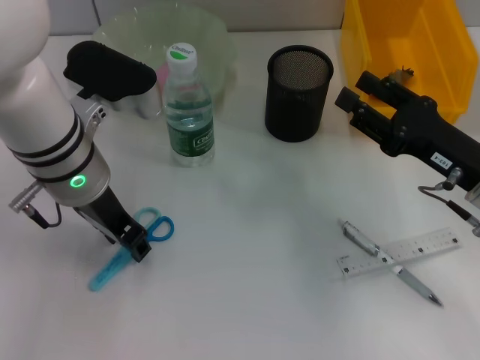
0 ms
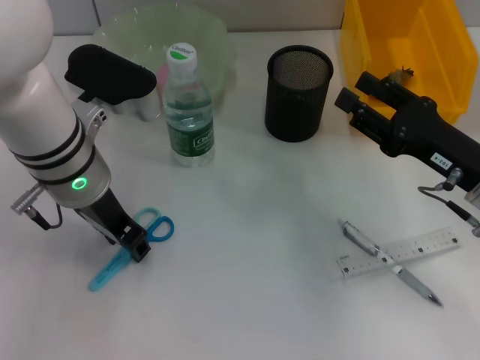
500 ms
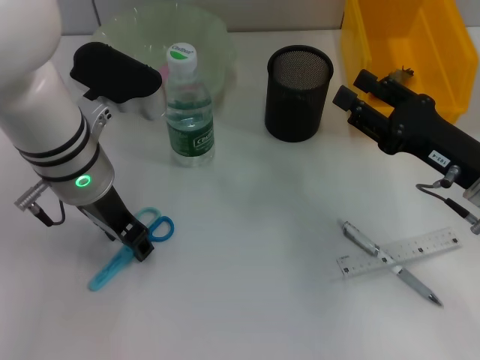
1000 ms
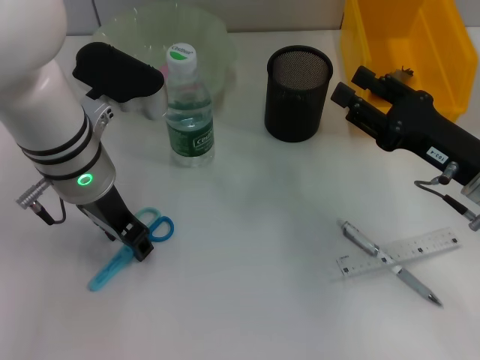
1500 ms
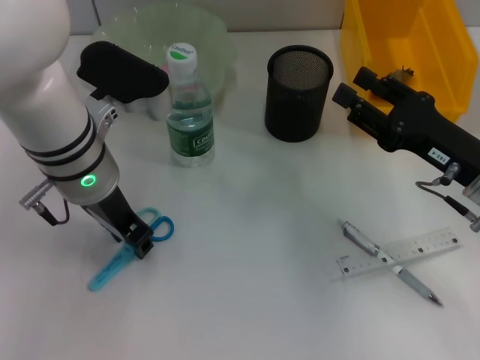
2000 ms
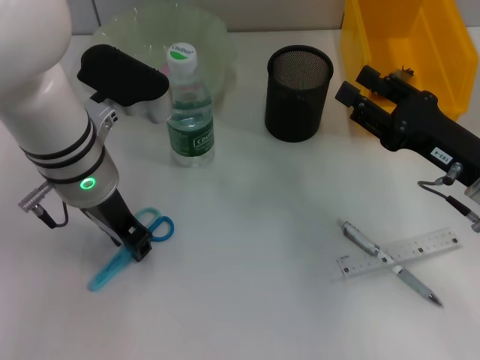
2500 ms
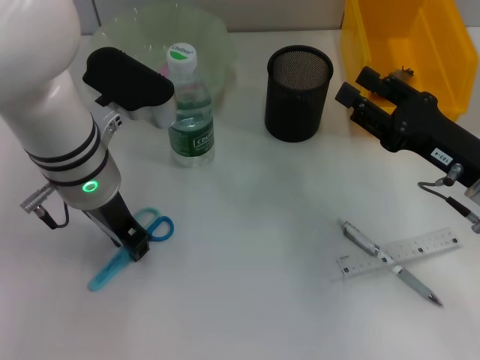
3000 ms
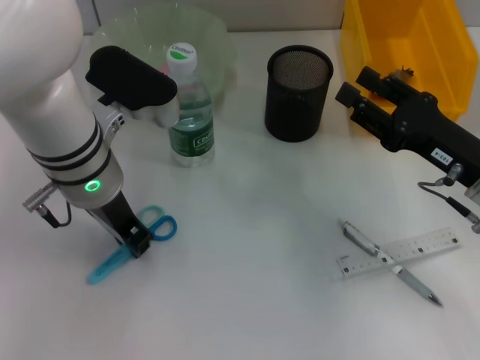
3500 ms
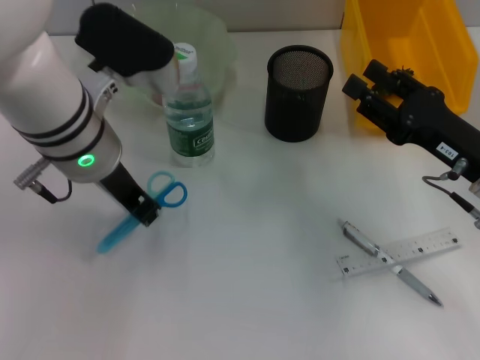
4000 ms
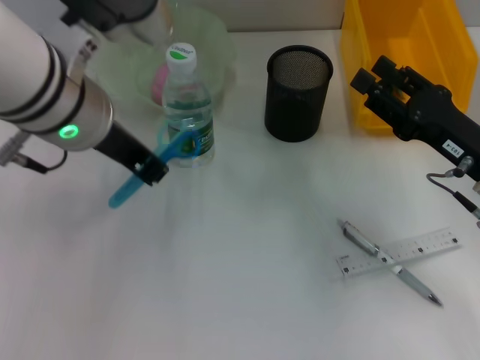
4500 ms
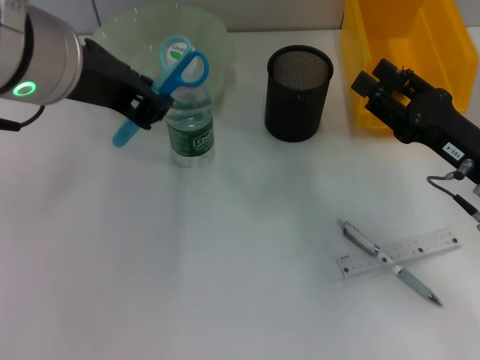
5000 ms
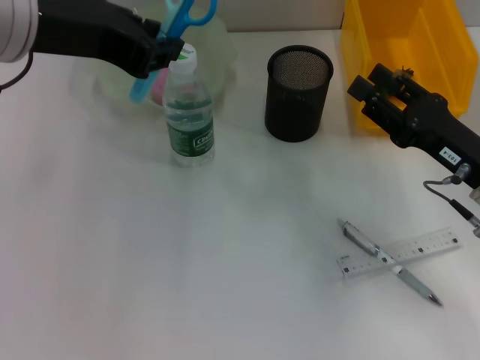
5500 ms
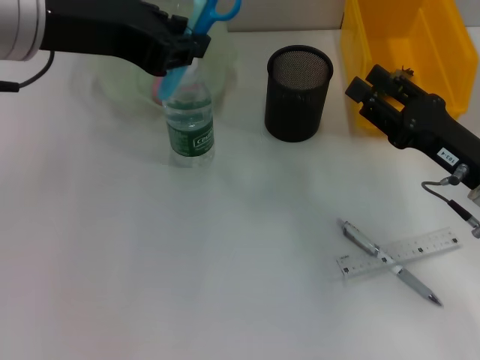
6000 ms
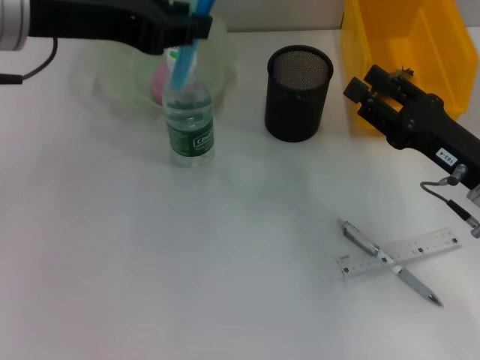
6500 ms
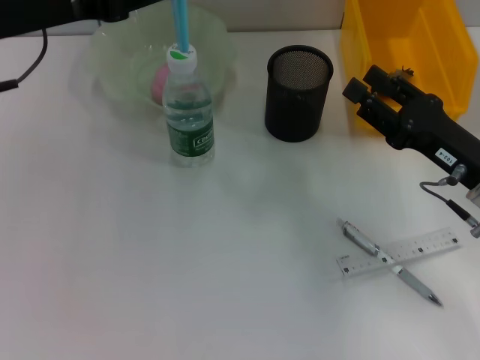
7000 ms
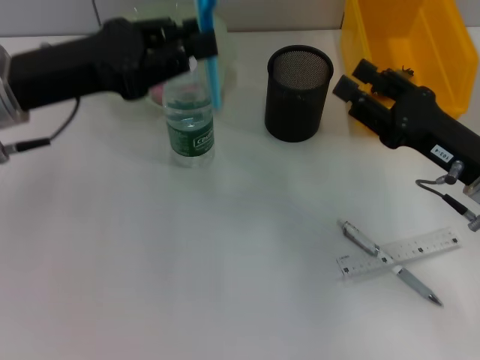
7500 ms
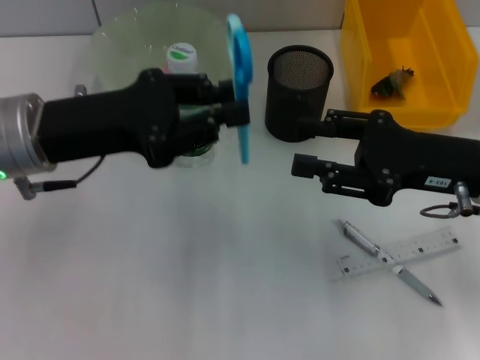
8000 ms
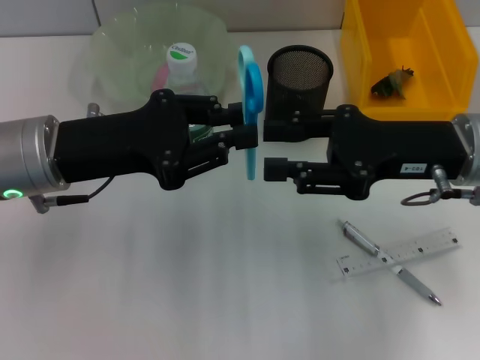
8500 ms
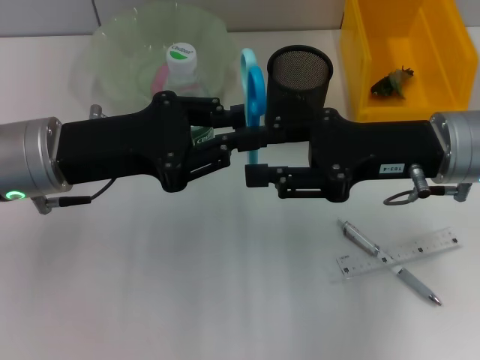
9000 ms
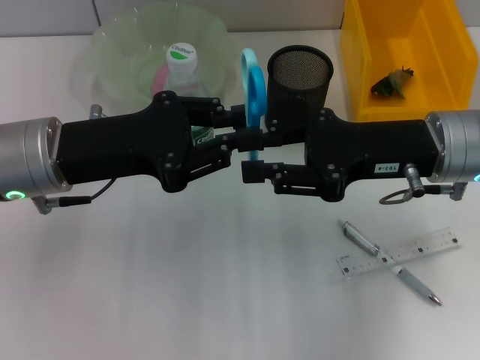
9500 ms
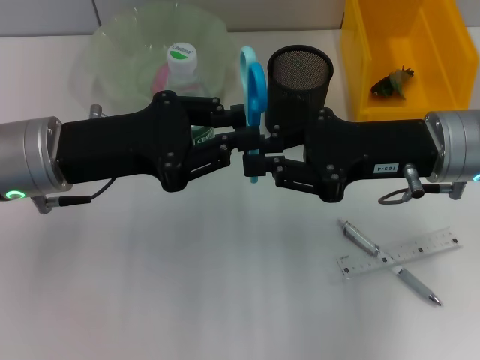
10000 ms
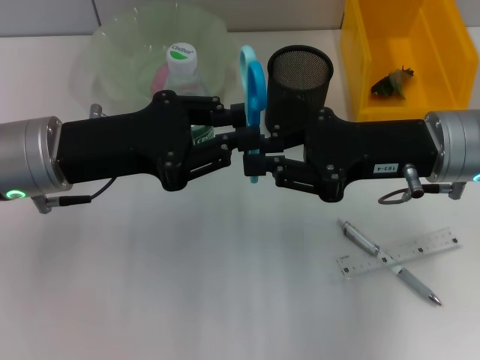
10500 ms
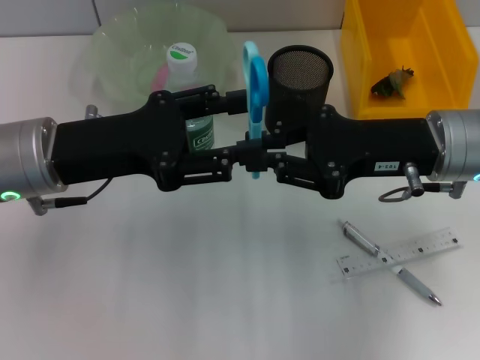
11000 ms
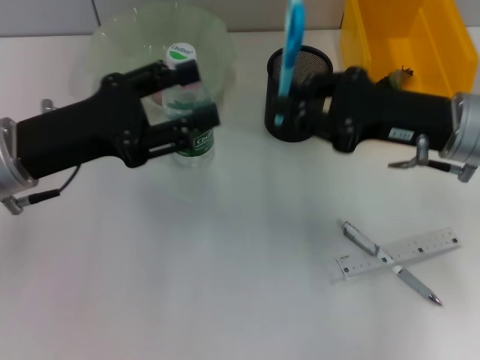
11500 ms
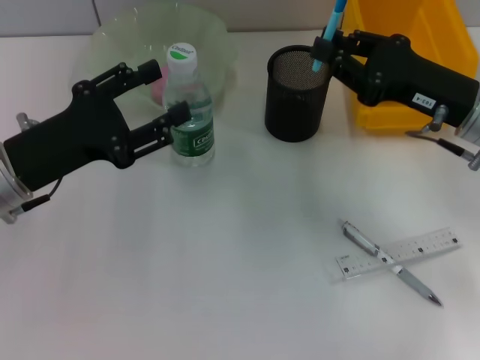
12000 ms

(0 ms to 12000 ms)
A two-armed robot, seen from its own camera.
Step, 0 ms - 3000 ms: Grab the blue scissors with the left hand.
Step, 3500 ms - 11000 ms: Pass the blue scissors from the left hand to the right hand.
0 ms - 2000 ms: Neither gripper changes place.
2000 ms - 4000 ms: The grippers stay close to where they were, moving slightly.
4000 ms - 6000 ms: The left gripper moves upward, some 10 cm.
6000 ms - 8000 ms: The right gripper is displaced upward by some 5 cm; the left gripper is displaced downward by approximately 15 cm.
8000 ms - 10000 ms: The right gripper ends up about 5 cm from where it was, and closes up.
10000 ms - 12000 ms: The left gripper shifts by roughly 5 cm, and opens up, while the right gripper changes place by about 5 cm.

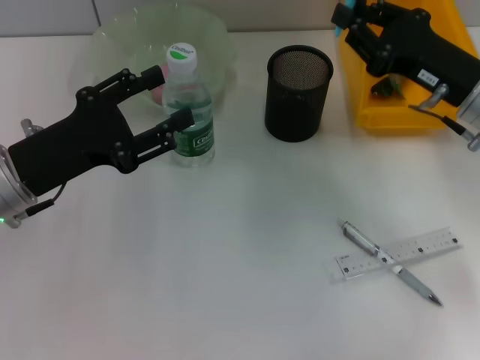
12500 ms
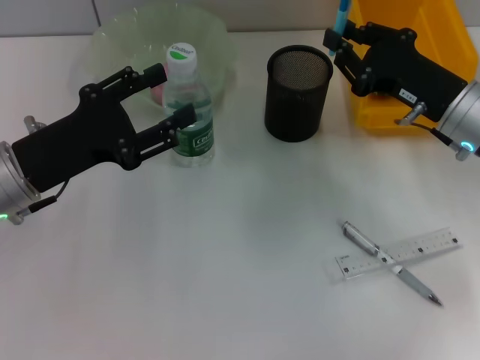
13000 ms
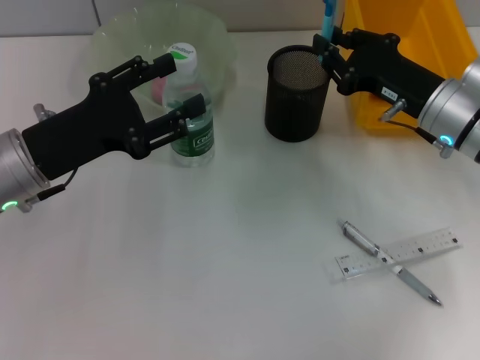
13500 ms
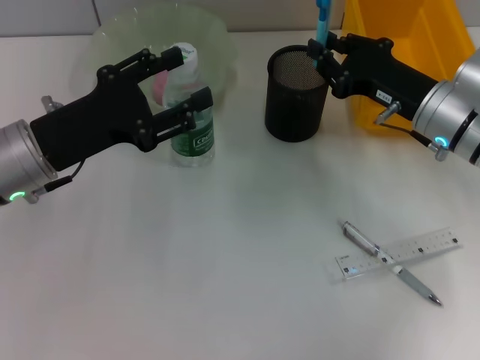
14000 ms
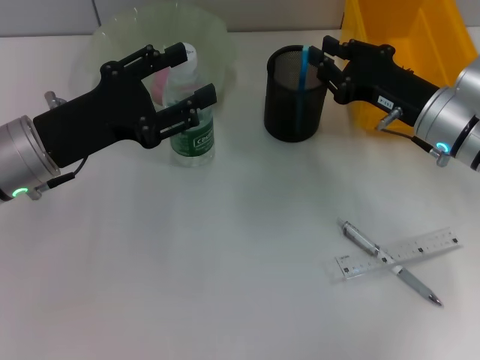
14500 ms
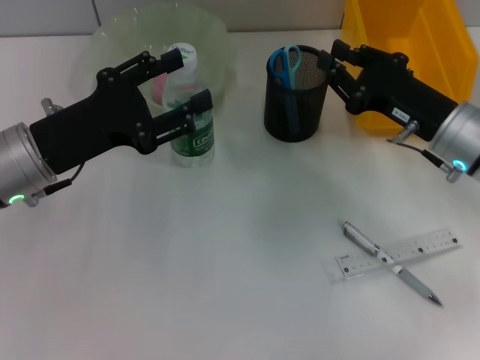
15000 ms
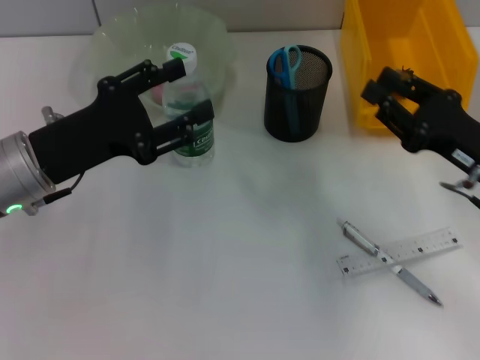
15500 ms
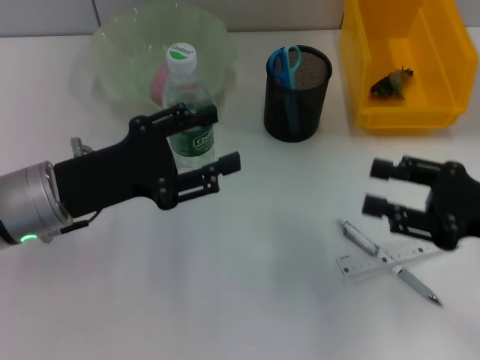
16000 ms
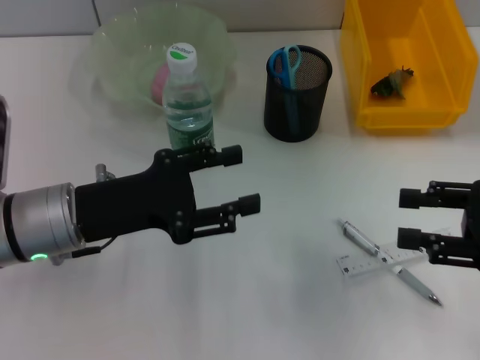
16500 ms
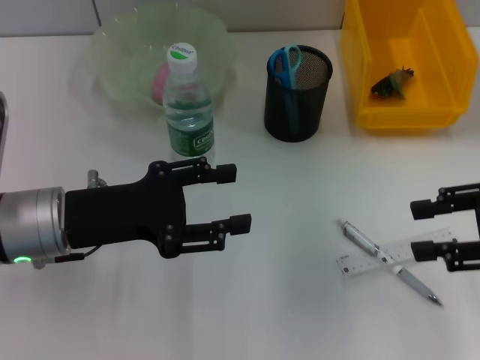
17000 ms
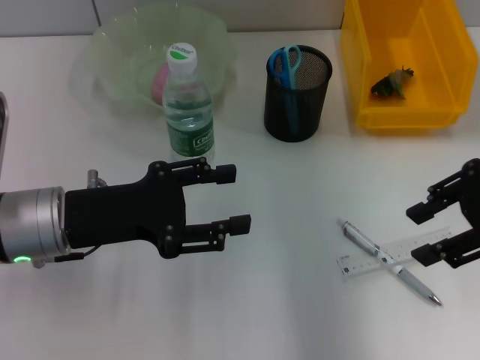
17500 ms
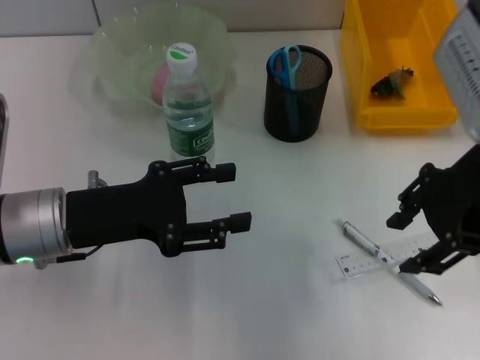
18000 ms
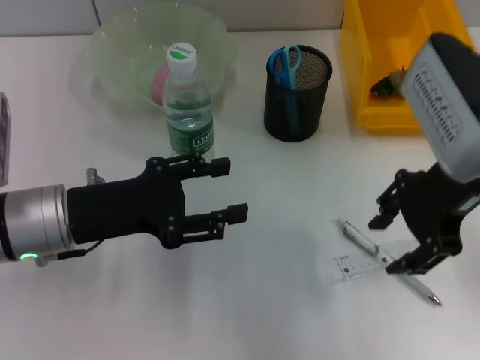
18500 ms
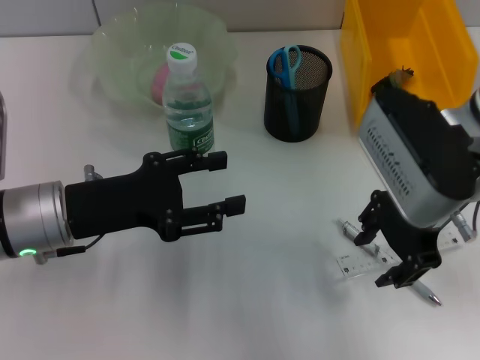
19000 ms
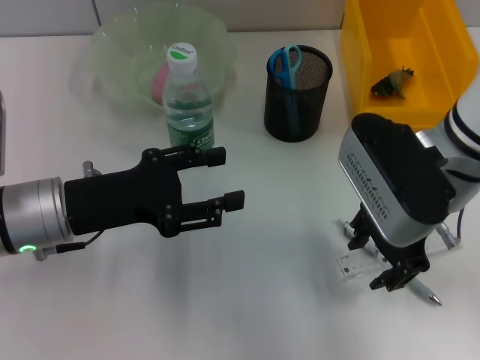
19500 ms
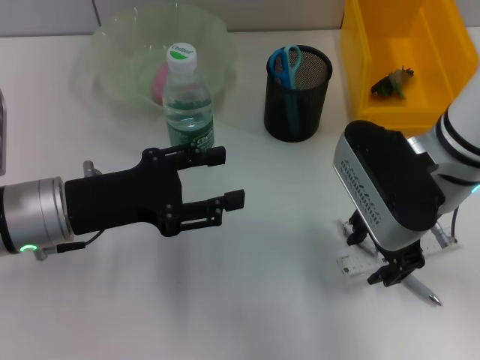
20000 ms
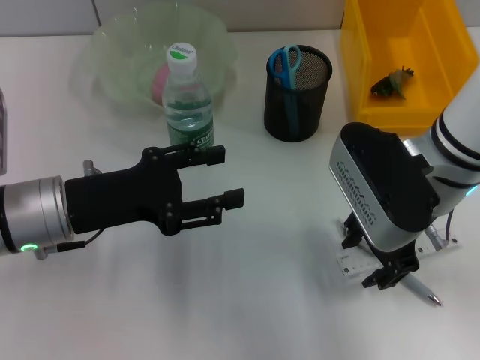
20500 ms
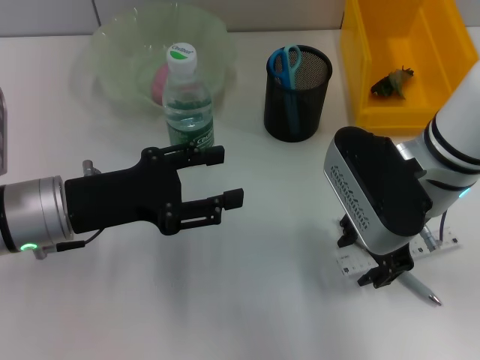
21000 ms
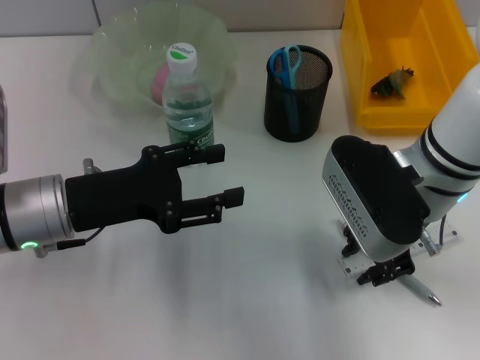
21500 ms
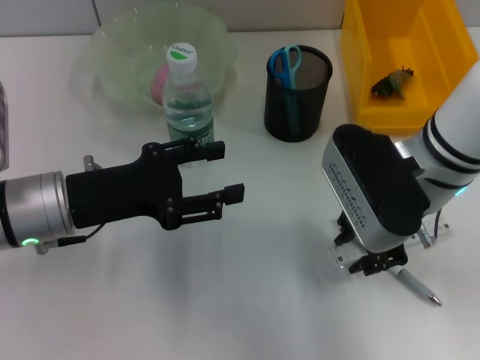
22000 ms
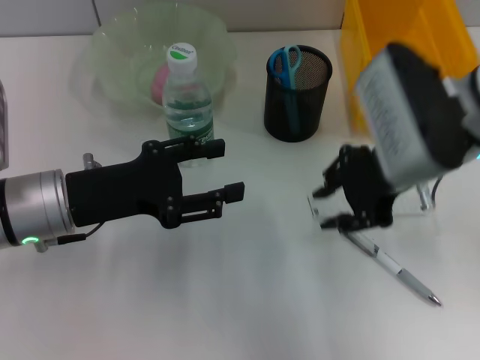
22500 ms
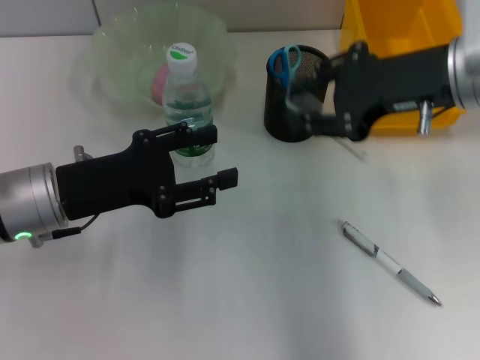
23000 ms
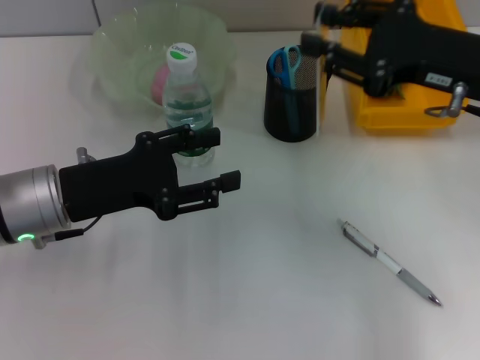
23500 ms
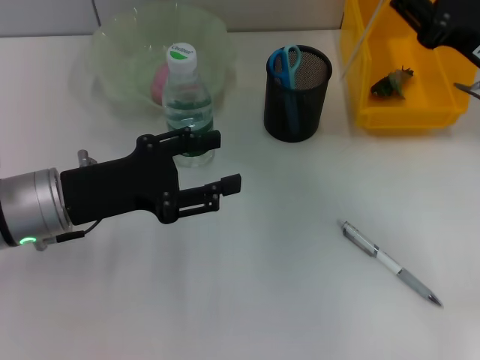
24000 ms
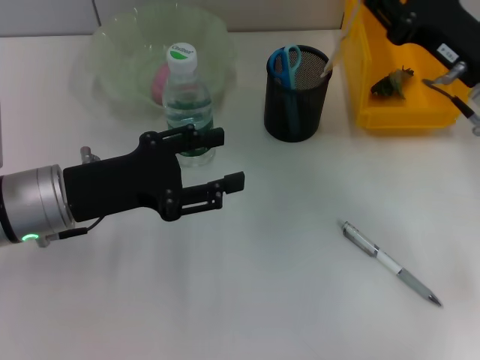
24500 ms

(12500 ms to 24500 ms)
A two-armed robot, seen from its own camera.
Step, 12500 ms - 14500 ms: Place the blue scissors into the pen holder with the right hand.
Step, 15000 ms - 21000 ms: Grab the ruler with the right hand.
12500 ms - 14500 ms: The grippers stay close to where they were, moving slightly.
14500 ms - 16500 ms: The right gripper shifts about 15 cm backward and to the right, and opens.
16500 ms - 18500 ms: The right gripper goes roughly 20 cm to the left, upward and forward.
18500 ms - 20500 ms: The right gripper is displaced downward by approximately 5 cm.
20500 ms - 22500 ms: The grippers move only a little.
22500 ms - 24500 ms: The right gripper goes some 10 cm to the right and downward.

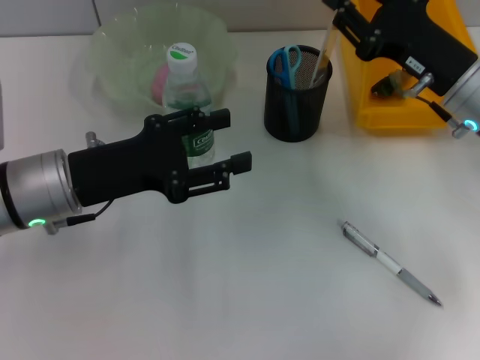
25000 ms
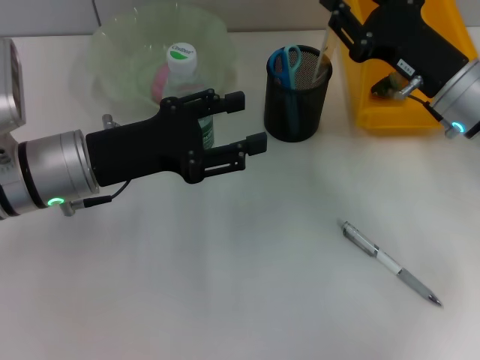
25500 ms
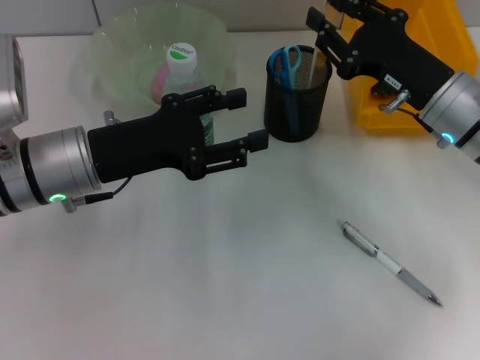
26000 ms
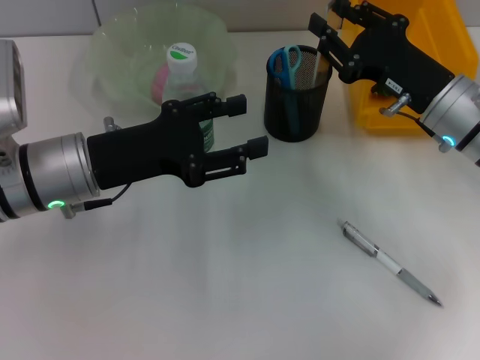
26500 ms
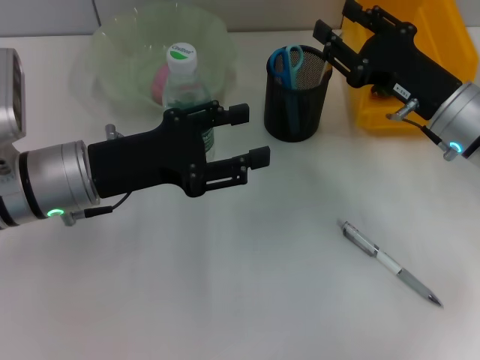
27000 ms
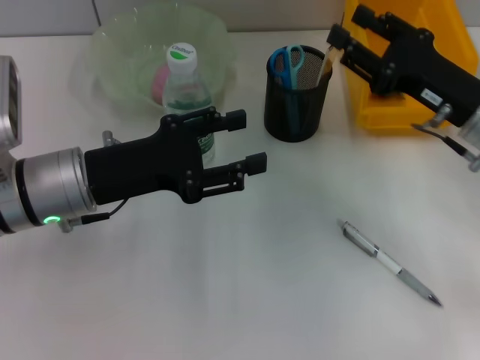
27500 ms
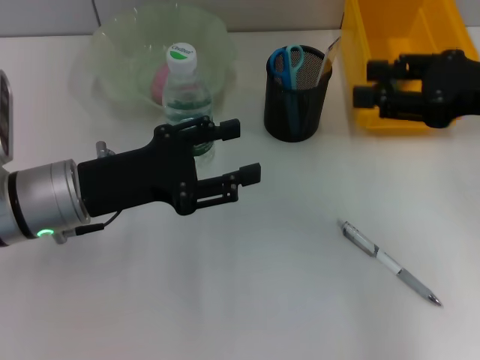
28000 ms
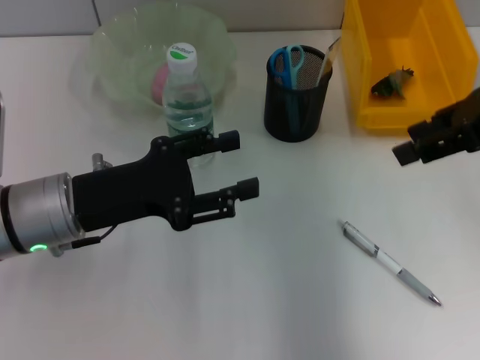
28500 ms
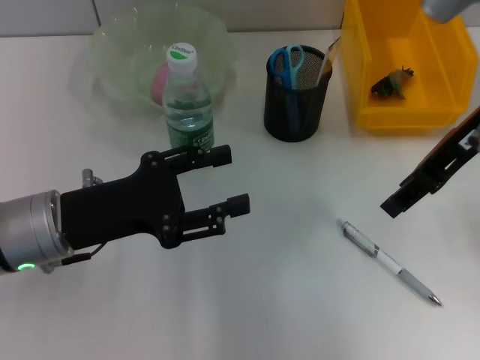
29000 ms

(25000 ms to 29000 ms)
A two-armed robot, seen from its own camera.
Step, 25000 ms - 27000 ms: Place the ruler into the pen holder with the right hand.
25000 ms - 27000 ms: The grippers stay close to where they were, moving slightly.
27000 ms - 29000 ms: The right gripper is displaced upward by approximately 15 cm.
